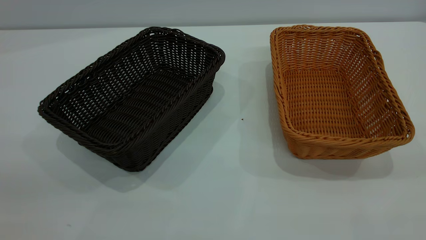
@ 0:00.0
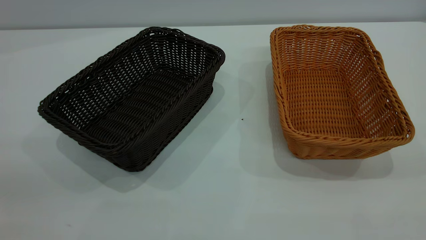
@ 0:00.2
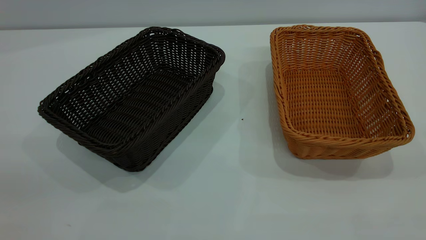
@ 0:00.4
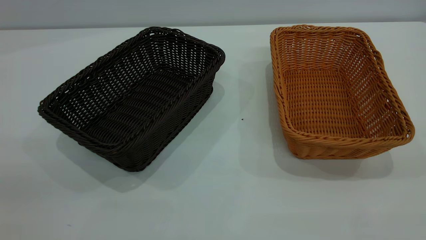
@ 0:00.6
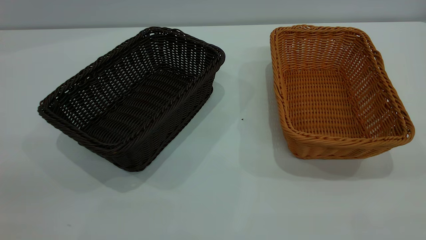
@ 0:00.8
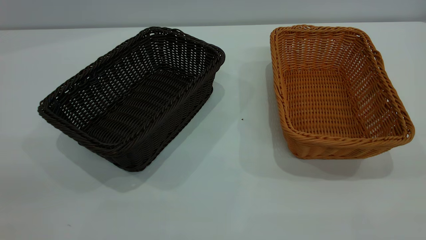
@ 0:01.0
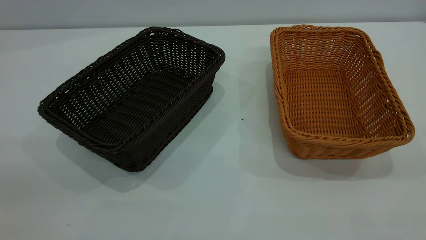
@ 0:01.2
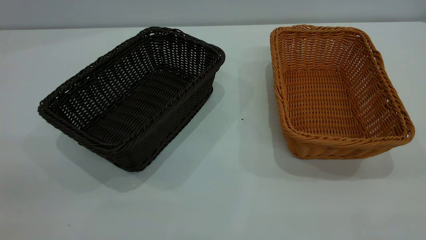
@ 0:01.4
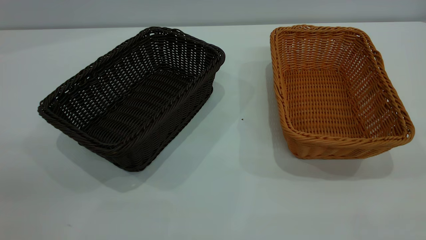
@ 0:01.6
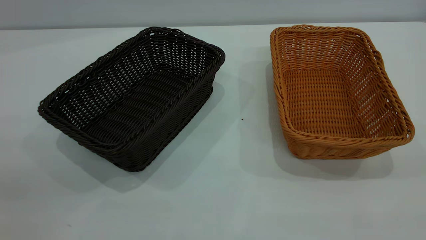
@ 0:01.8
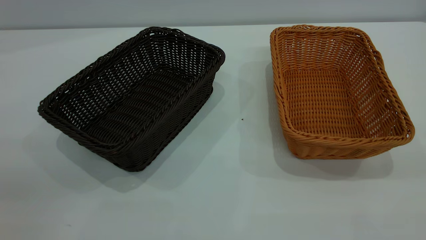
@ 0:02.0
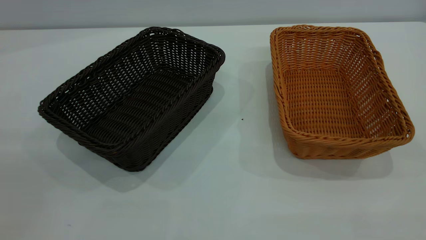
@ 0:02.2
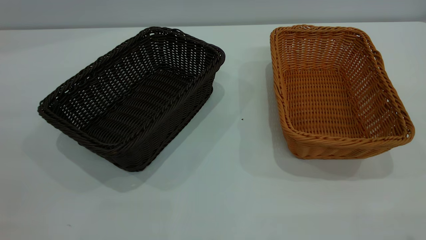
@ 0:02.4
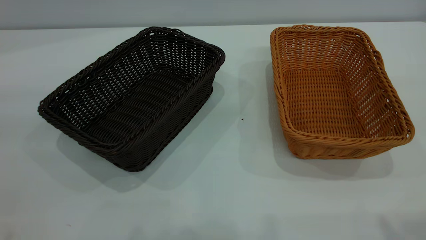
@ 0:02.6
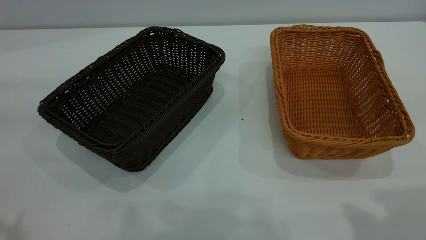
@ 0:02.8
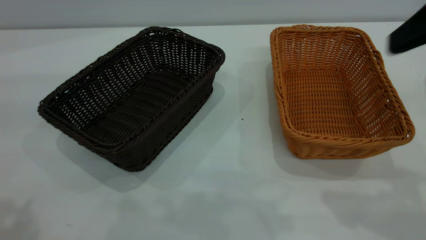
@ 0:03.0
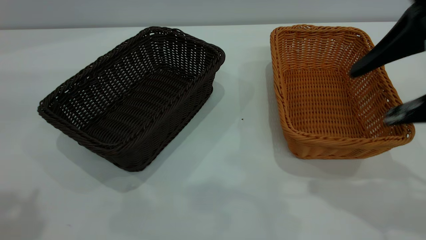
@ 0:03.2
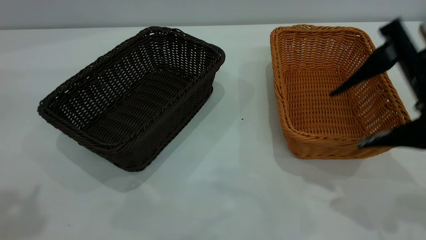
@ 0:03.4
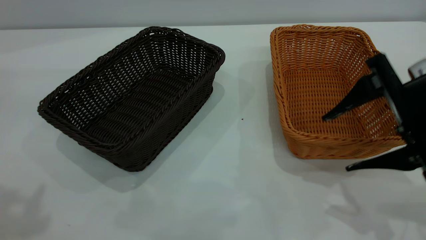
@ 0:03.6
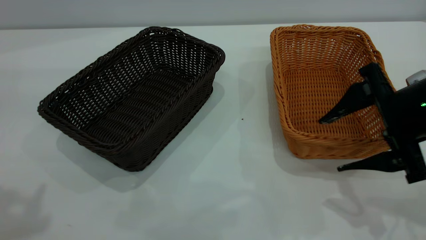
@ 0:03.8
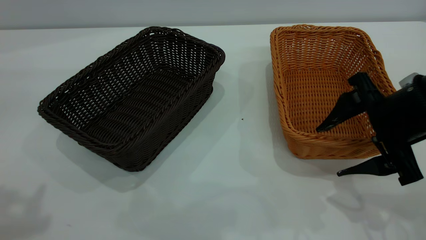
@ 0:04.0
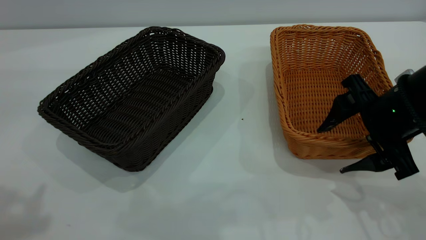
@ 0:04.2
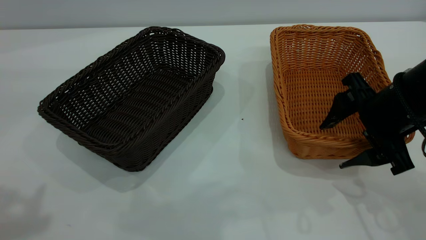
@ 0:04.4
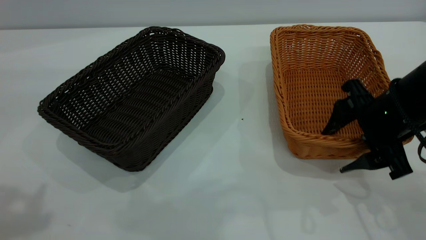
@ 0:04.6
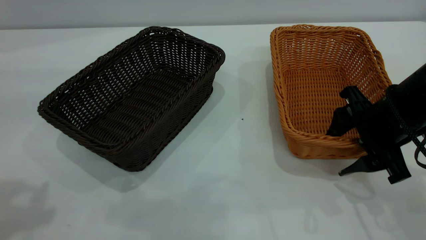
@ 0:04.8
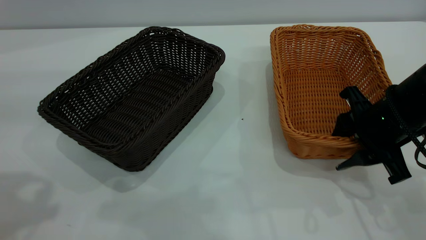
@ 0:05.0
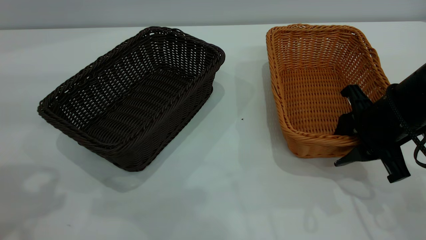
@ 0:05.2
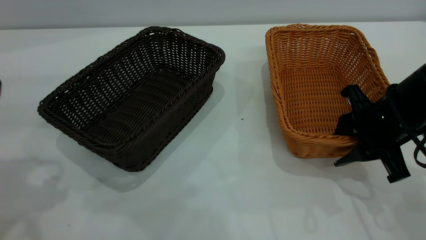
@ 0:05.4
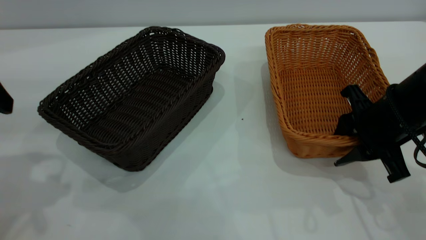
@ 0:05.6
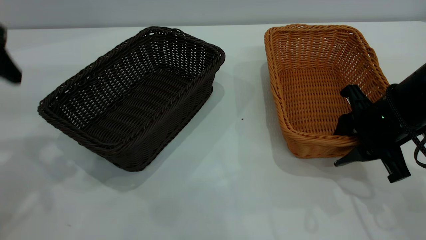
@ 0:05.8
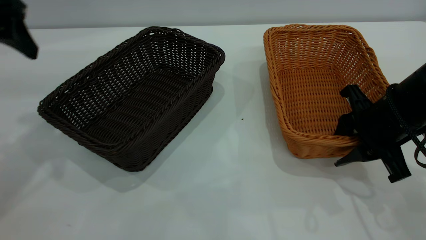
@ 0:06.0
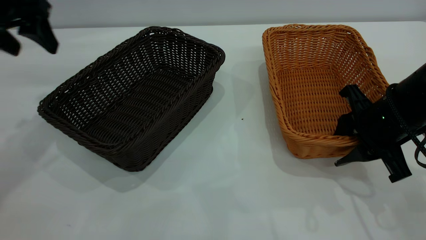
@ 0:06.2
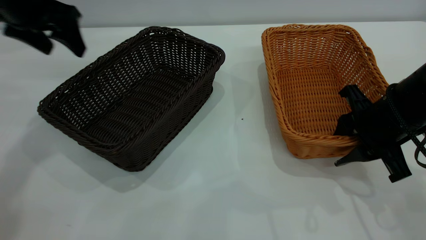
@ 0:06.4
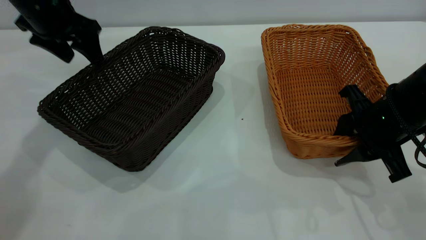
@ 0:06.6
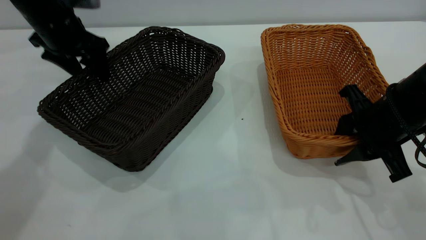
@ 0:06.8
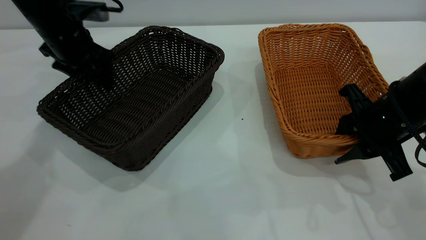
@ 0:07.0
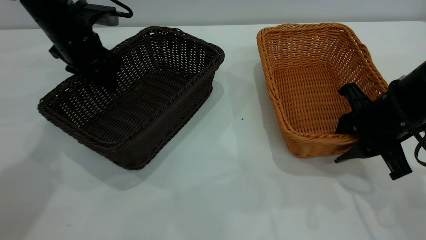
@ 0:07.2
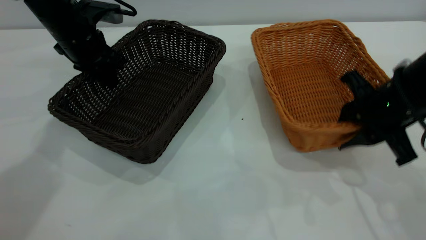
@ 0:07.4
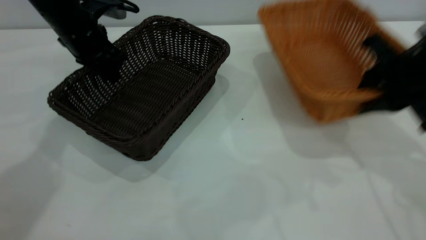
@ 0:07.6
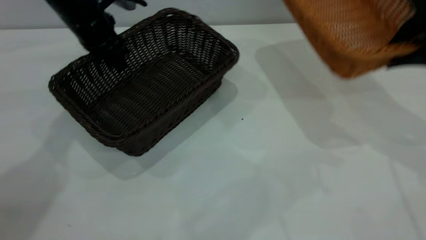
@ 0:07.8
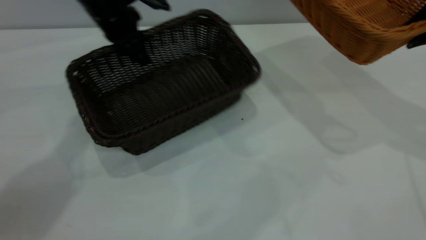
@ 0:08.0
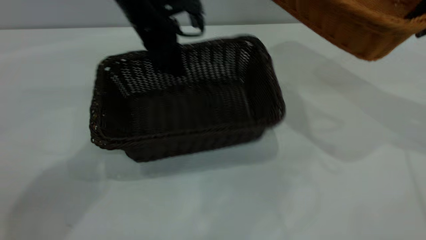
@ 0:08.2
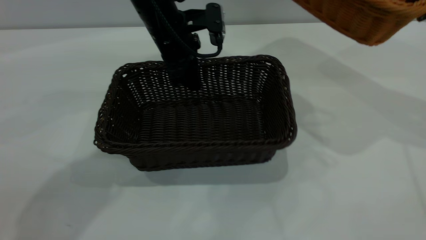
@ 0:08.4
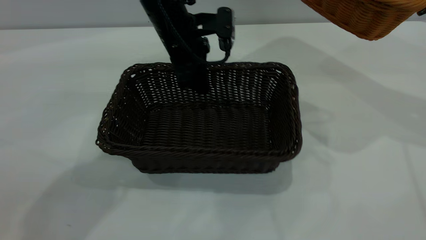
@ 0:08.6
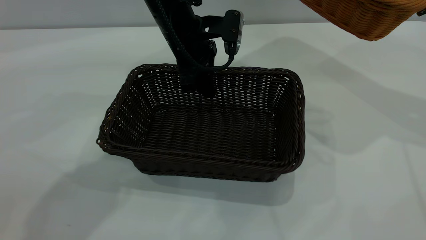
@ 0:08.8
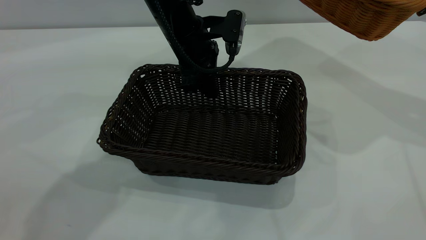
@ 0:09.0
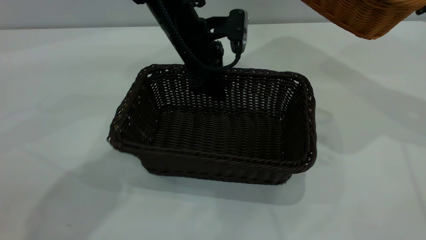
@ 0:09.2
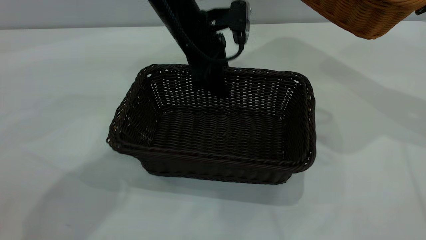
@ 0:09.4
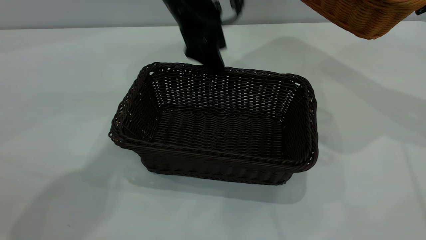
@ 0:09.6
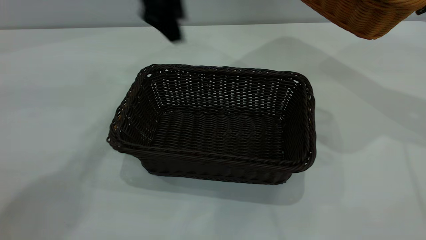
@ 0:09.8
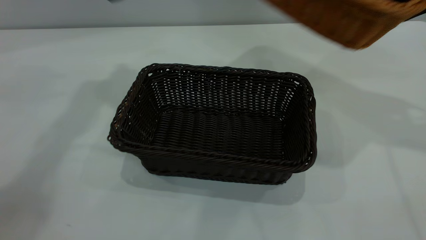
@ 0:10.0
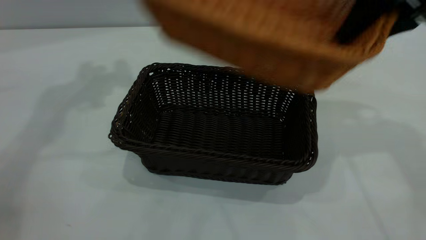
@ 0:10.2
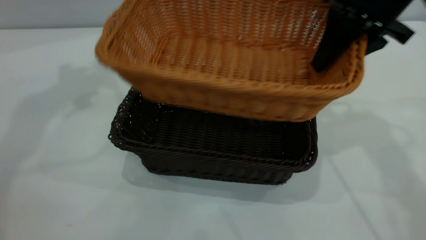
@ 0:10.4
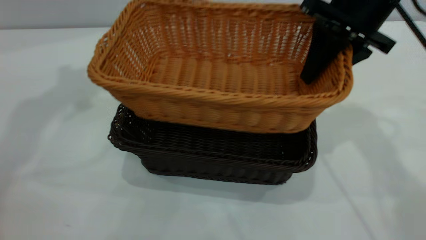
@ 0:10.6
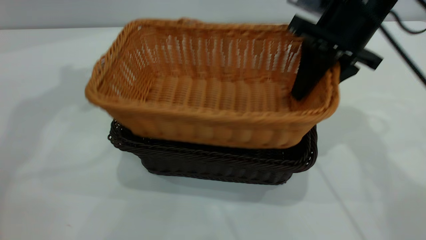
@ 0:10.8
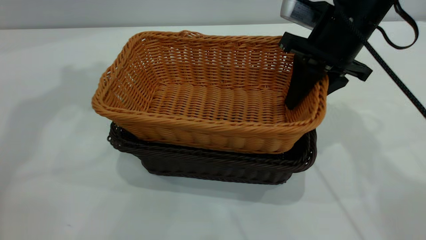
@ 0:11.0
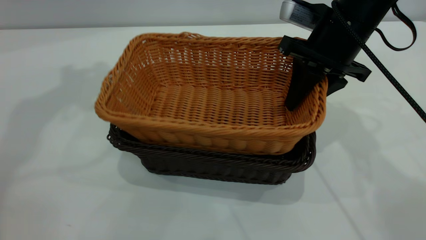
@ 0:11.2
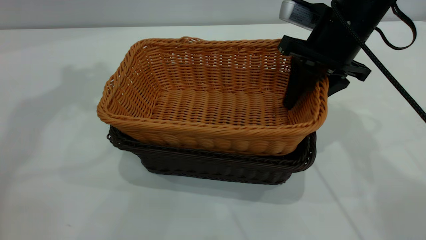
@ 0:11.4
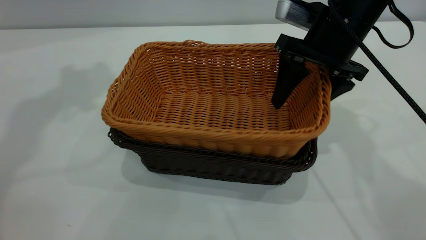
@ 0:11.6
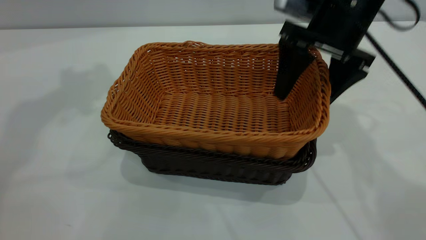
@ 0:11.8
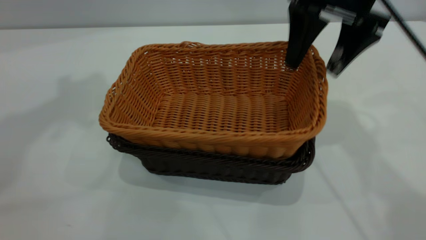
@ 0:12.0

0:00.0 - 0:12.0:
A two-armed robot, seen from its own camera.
Task of the whole recording: the left gripper grasp the black basket and place it in the center of the table, the right gripper grasp the brown basket and place it inside the black one.
Step, 0:00.0 - 0:07.6: Pick up the light basket with the right gripper.
Step, 0:07.8 - 0:09.6: Move the dark basket to the center of view.
0:00.0 - 0:01.6: Both grippers stay about where they are.
0:01.6 - 0:03.0: The right gripper moves forward, some 20 cm, and opens.
0:03.0 - 0:04.4: The right gripper shifts approximately 20 cm downward and forward.
0:04.4 - 0:06.0: The left gripper heads forward and downward, covering roughly 20 cm. Meanwhile the right gripper closes up.
0:06.0 - 0:07.6: The right gripper heads upward, covering approximately 10 cm, while the left gripper moves forward, downward and to the right, some 20 cm, and closes up.
0:07.6 - 0:09.0: The left gripper moves to the right, about 20 cm. The right gripper travels upward and to the right by approximately 15 cm.
0:09.0 - 0:10.4: The right gripper goes roughly 15 cm to the left. The left gripper is displaced upward and to the left by roughly 35 cm, and opens up.
0:10.4 - 0:12.0: The right gripper travels downward and back again, about 5 cm each way, and opens; the left gripper goes some 10 cm upward and backward.

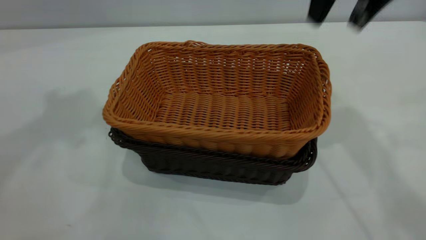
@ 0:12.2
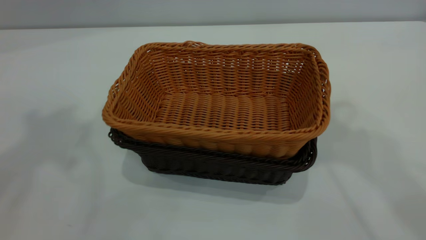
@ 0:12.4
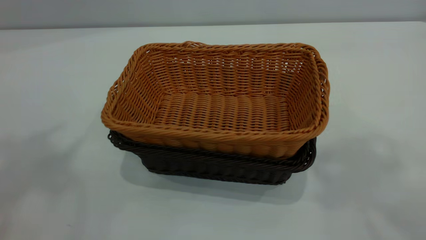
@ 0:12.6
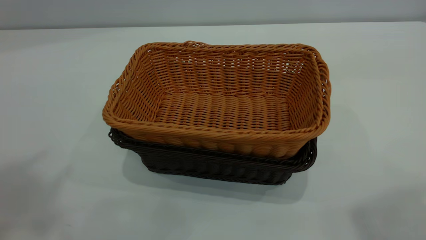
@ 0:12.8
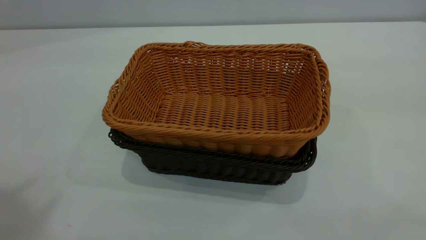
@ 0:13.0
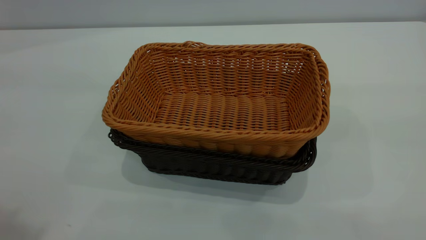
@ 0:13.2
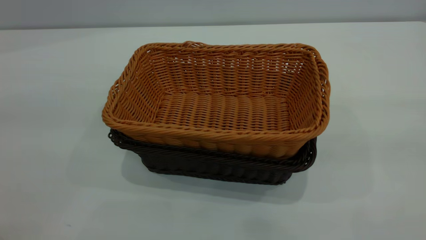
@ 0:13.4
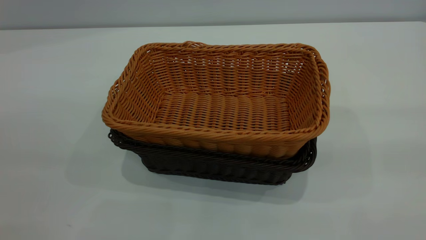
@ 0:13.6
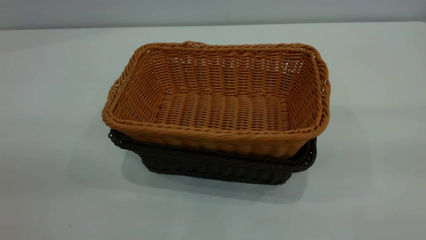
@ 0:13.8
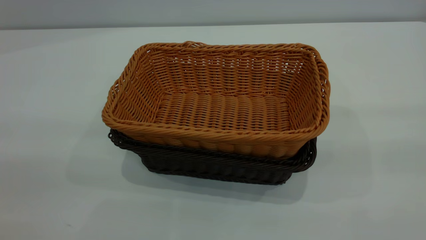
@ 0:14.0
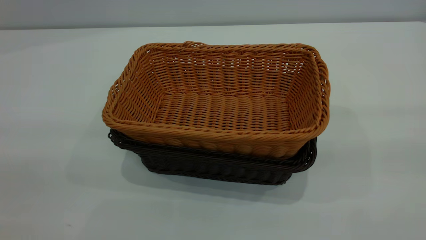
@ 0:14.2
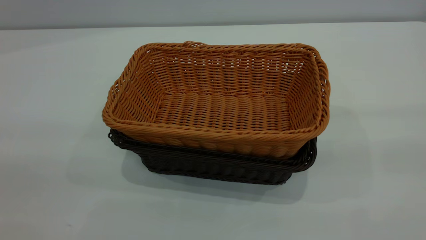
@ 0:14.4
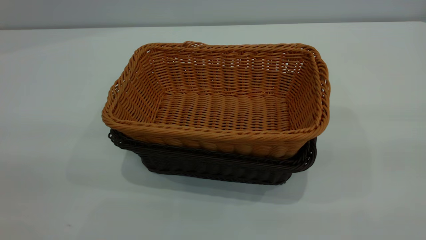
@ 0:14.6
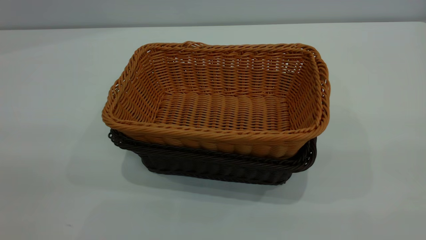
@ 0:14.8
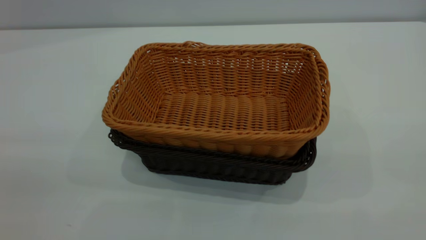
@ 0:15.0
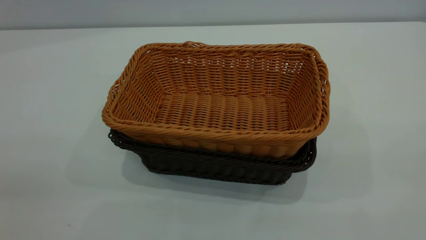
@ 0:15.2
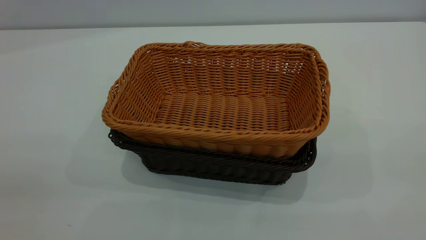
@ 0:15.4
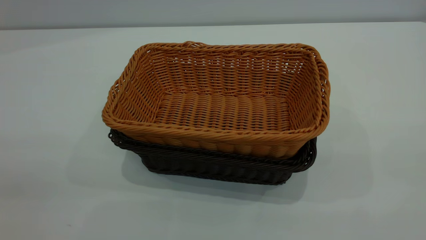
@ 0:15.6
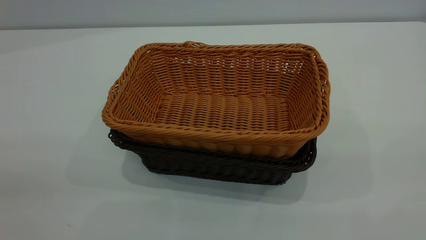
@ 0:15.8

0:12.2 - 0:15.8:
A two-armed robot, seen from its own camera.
Task of the whole recording: the left gripper grasp the black basket and place it in the center of the table, the right gripper grasp the brown basket and place it inside the black one.
0:12.2 - 0:14.0: The right gripper is displaced backward by approximately 30 cm.
